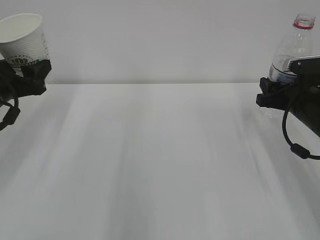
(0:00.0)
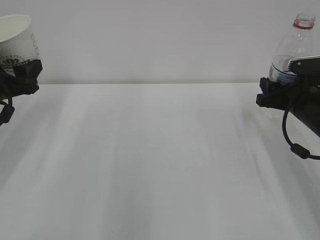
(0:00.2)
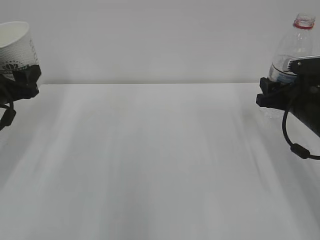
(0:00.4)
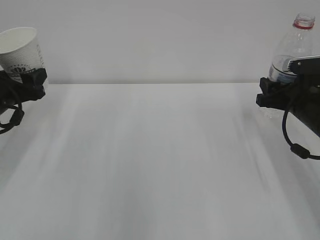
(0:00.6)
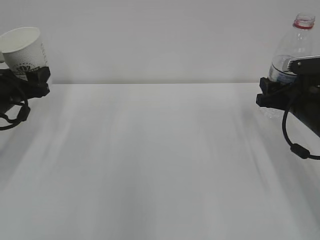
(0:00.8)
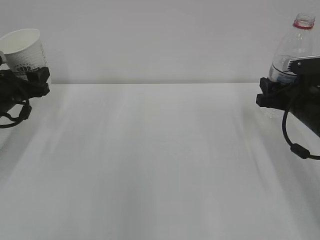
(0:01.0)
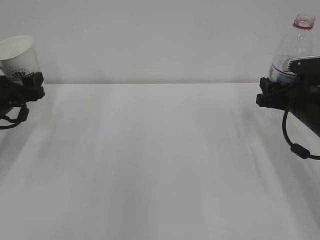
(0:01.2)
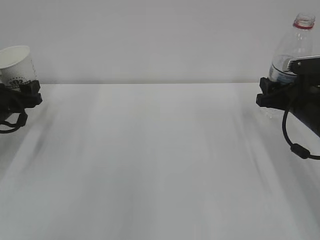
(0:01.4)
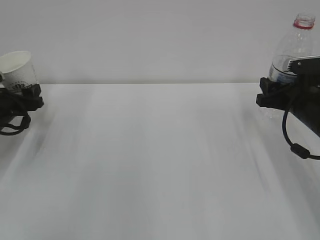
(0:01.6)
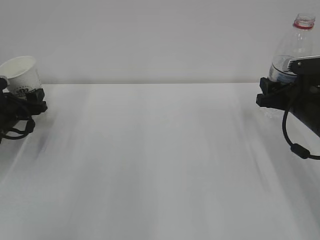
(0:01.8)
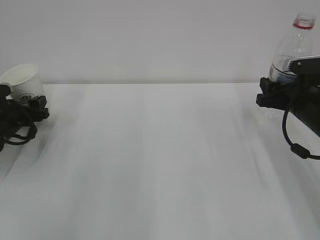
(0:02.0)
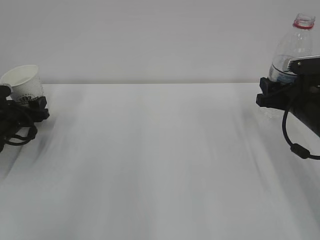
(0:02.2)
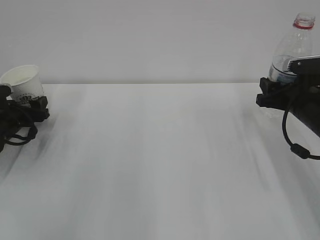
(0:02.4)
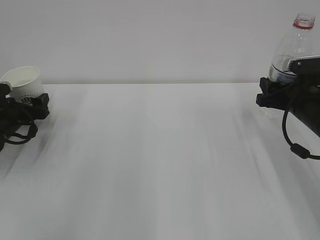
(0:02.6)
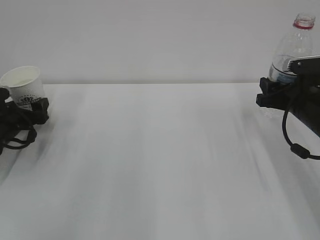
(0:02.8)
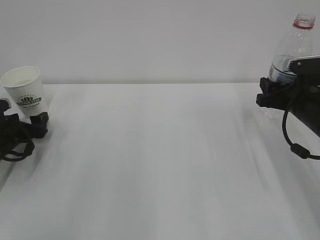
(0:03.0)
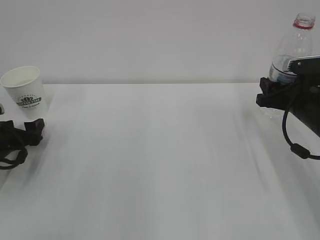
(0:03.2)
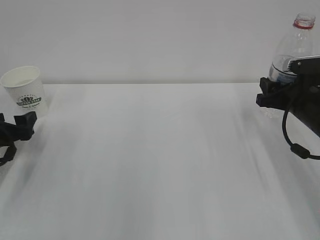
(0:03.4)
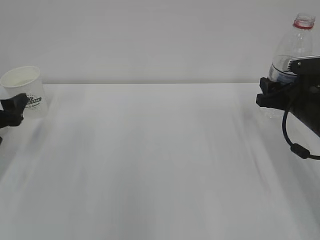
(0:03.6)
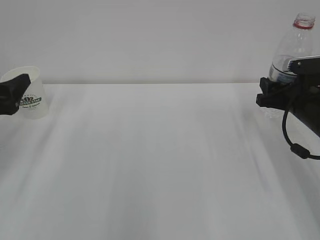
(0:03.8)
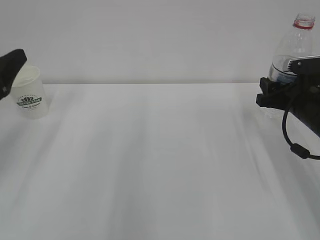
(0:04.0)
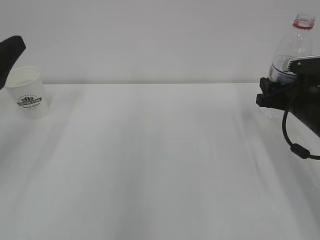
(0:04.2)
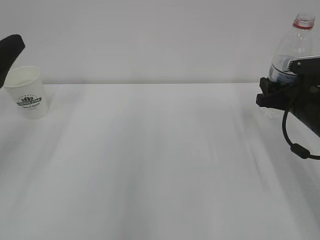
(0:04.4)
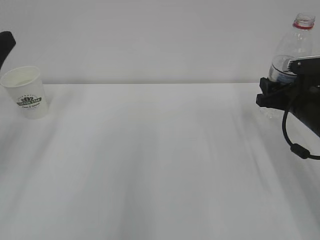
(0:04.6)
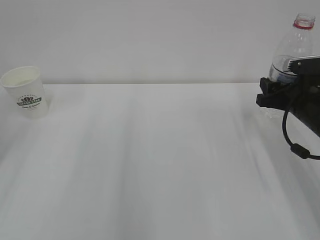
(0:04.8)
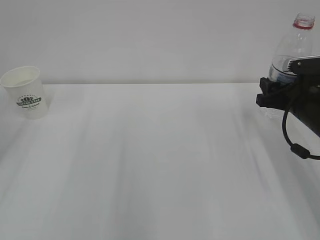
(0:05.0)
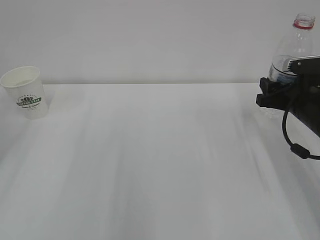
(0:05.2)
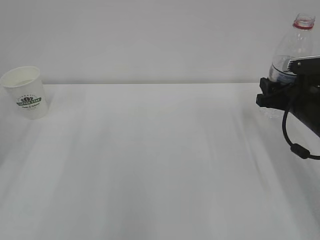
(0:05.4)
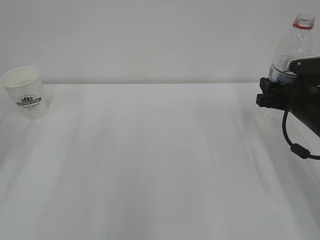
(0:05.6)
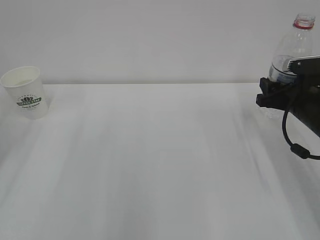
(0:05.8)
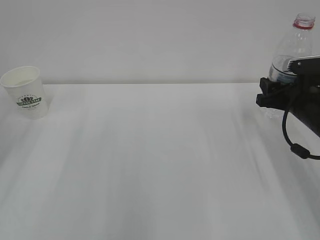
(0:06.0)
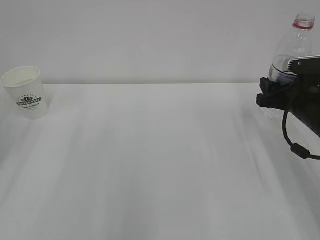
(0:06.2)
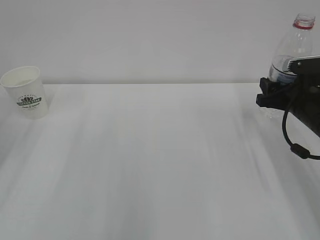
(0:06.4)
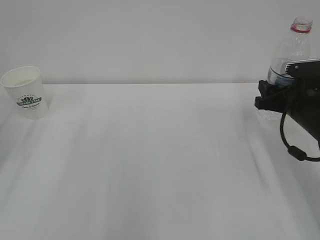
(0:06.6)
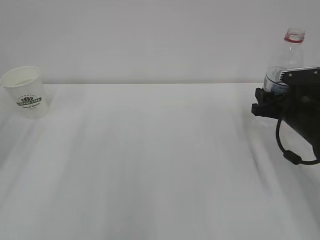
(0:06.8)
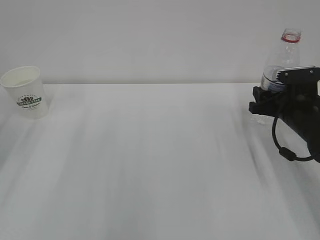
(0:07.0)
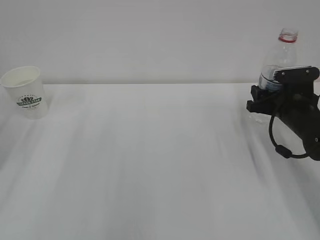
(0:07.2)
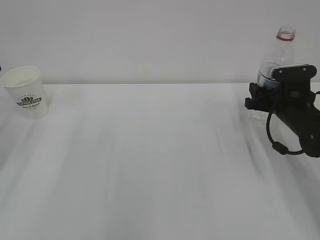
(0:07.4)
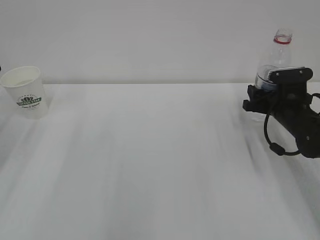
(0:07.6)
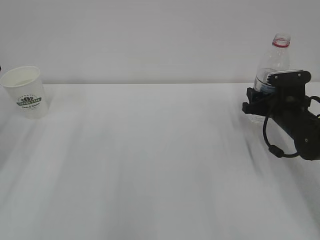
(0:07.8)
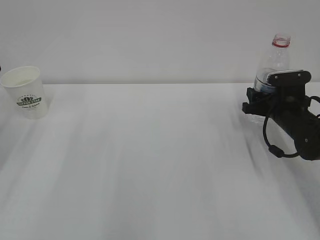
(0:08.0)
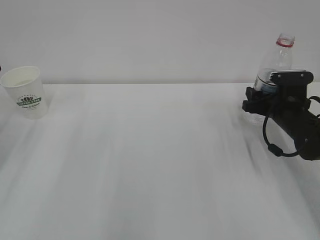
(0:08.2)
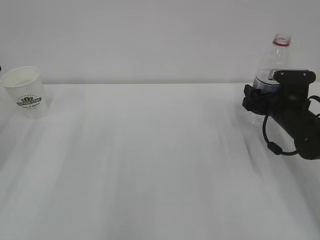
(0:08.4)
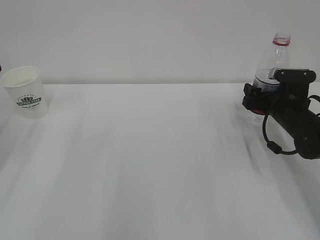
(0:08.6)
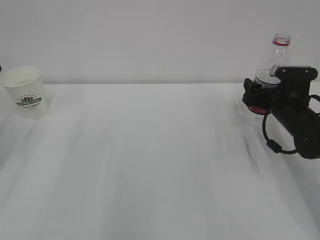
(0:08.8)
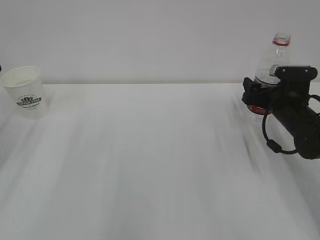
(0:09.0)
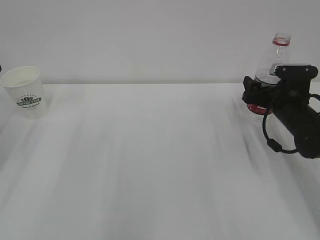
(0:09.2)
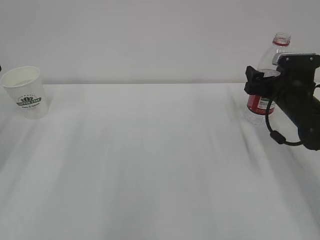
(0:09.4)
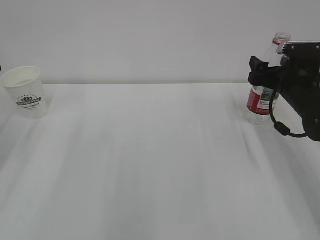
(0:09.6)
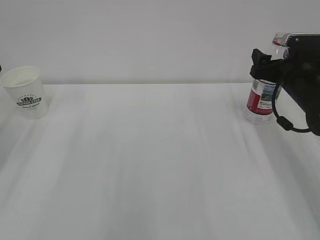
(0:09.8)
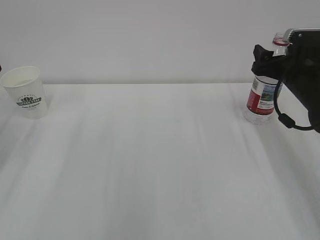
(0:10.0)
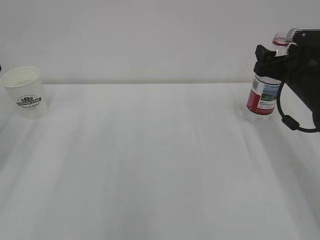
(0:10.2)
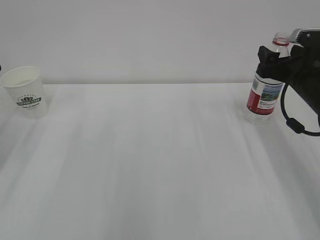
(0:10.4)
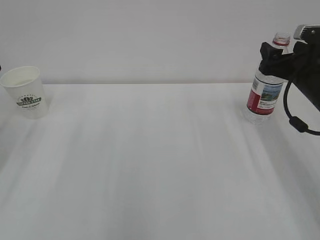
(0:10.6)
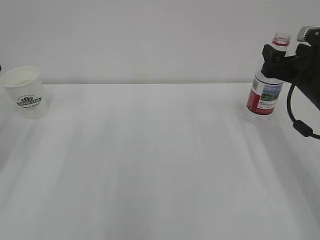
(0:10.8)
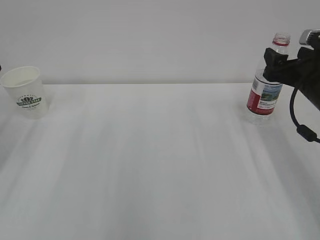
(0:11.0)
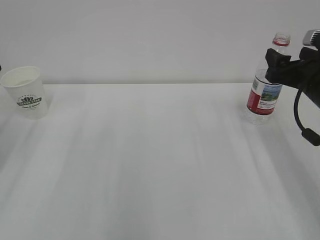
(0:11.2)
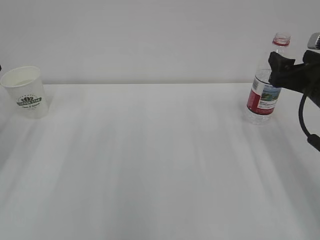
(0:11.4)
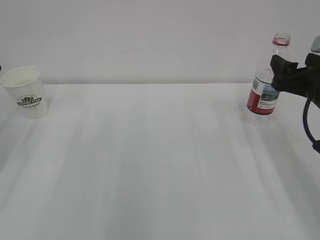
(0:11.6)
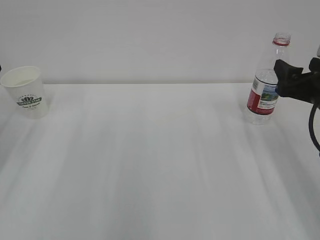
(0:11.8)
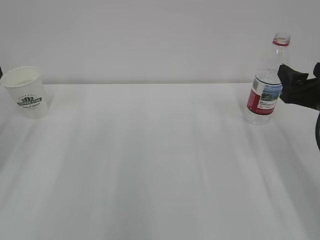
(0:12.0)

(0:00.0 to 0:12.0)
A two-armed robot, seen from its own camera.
0:00.0 - 0:01.6: The left gripper moves downward, forward and to the left, some 15 cm.
0:01.6 - 0:03.0: The left gripper changes place by some 5 cm, and opens.
0:03.0 - 0:04.4: The left gripper heads upward and backward, covering approximately 25 cm.
0:04.4 - 0:06.0: The left gripper ends up roughly 5 cm from where it was.
0:06.0 - 0:07.6: The right gripper ends up some 5 cm from where it was.
0:07.6 - 0:09.0: The right gripper opens up.
0:09.0 - 0:10.4: The right gripper travels upward by approximately 10 cm.
0:10.4 - 0:12.0: The right gripper goes roughly 10 cm backward.

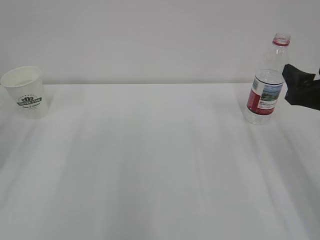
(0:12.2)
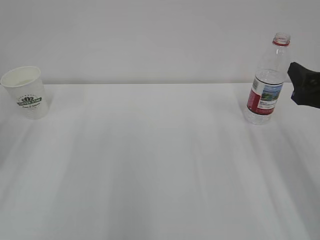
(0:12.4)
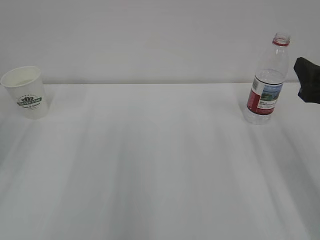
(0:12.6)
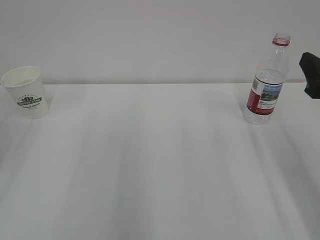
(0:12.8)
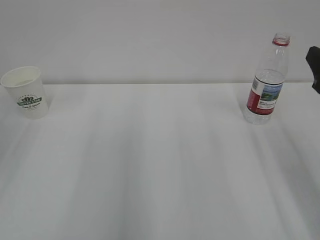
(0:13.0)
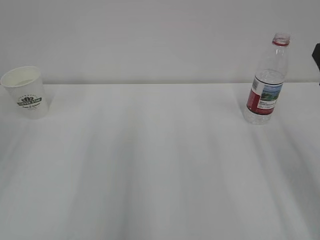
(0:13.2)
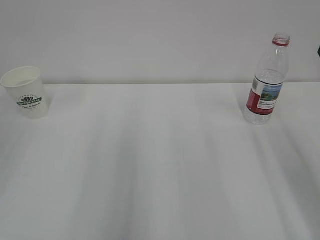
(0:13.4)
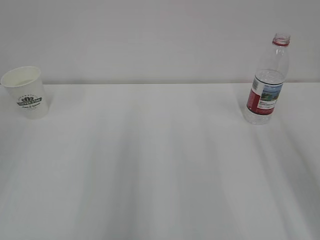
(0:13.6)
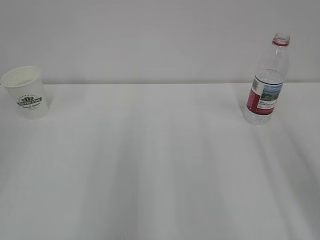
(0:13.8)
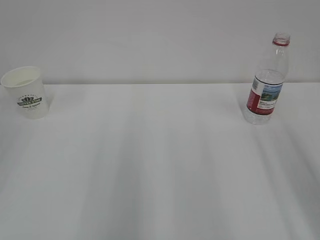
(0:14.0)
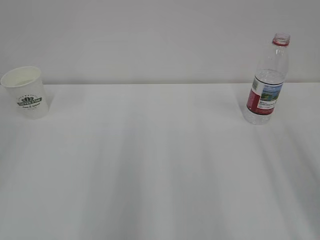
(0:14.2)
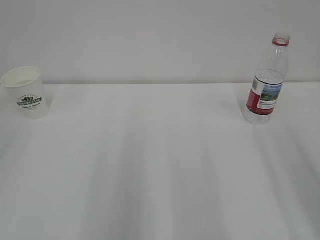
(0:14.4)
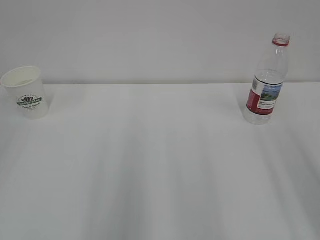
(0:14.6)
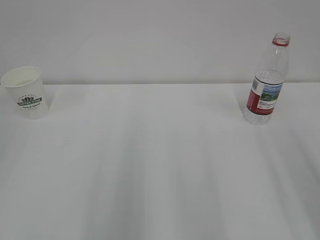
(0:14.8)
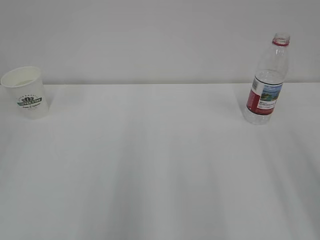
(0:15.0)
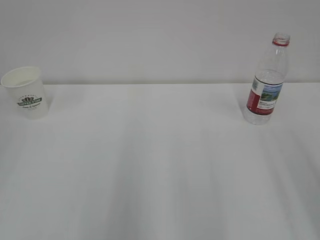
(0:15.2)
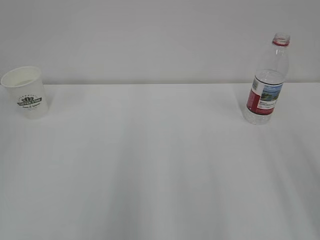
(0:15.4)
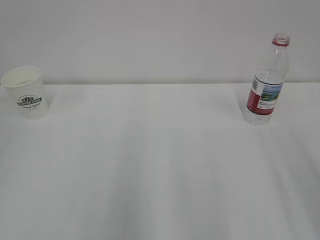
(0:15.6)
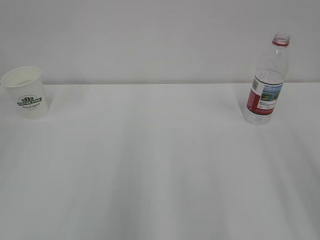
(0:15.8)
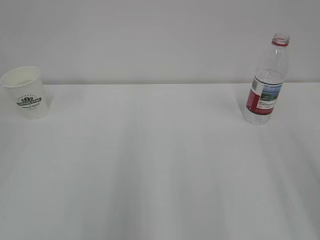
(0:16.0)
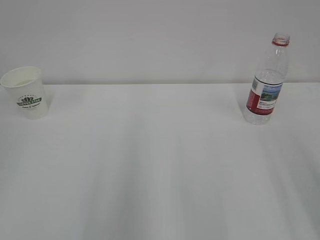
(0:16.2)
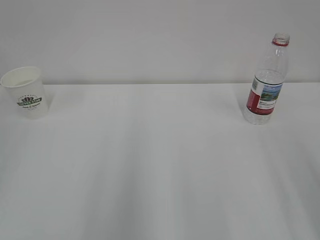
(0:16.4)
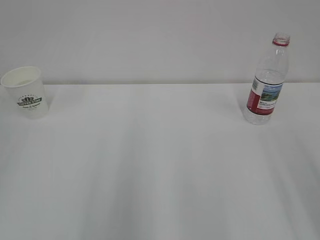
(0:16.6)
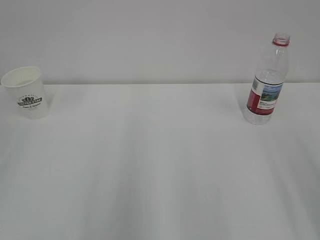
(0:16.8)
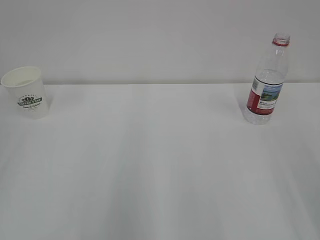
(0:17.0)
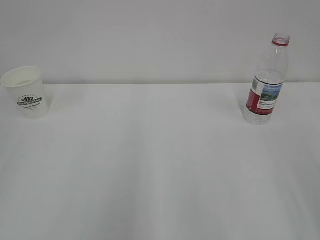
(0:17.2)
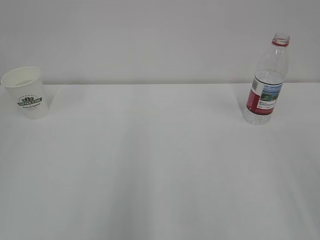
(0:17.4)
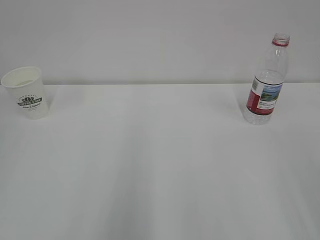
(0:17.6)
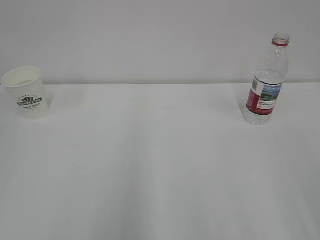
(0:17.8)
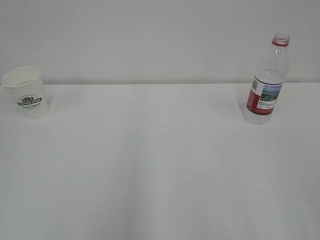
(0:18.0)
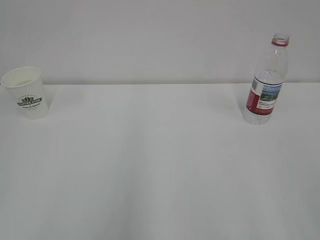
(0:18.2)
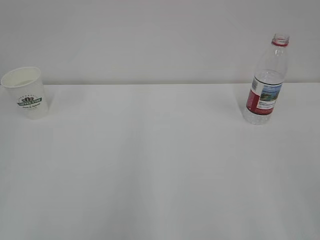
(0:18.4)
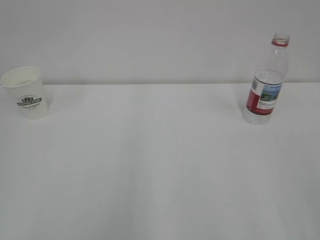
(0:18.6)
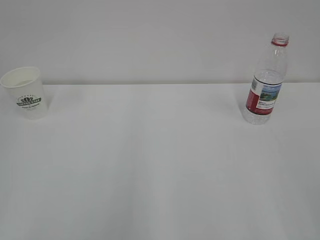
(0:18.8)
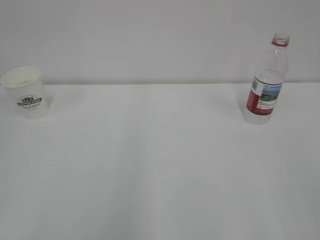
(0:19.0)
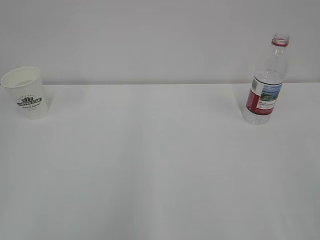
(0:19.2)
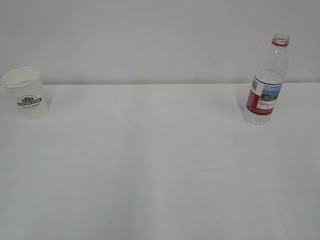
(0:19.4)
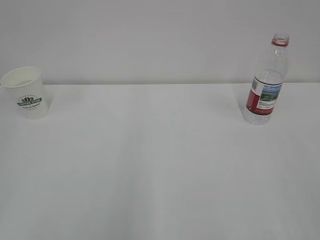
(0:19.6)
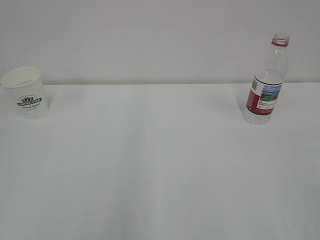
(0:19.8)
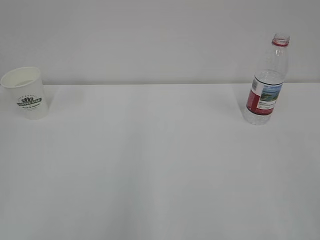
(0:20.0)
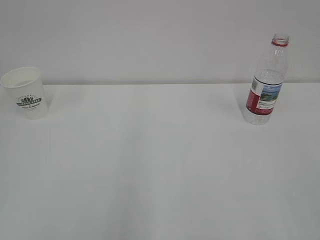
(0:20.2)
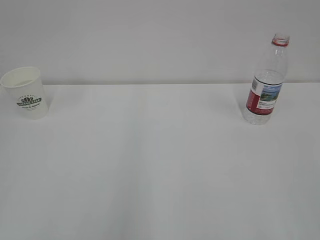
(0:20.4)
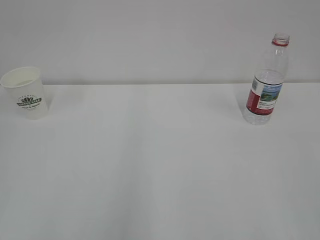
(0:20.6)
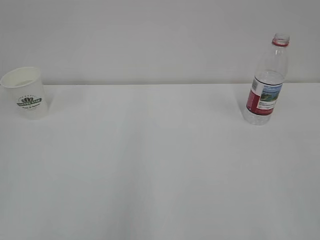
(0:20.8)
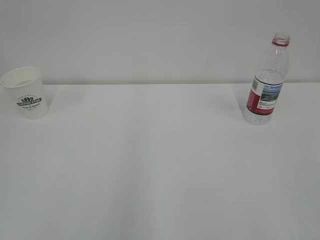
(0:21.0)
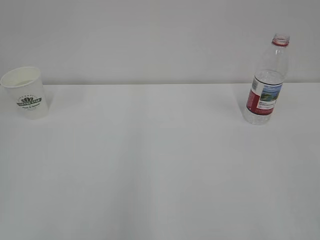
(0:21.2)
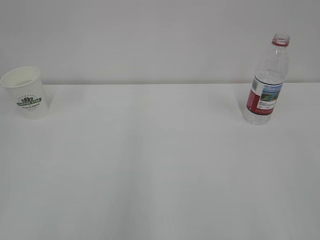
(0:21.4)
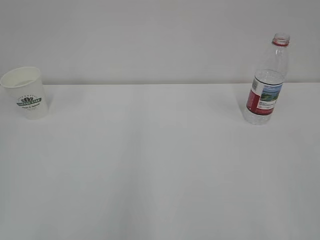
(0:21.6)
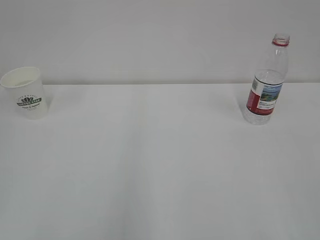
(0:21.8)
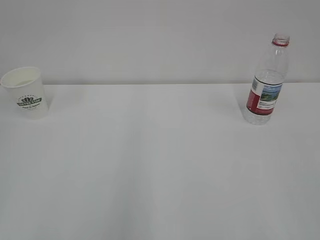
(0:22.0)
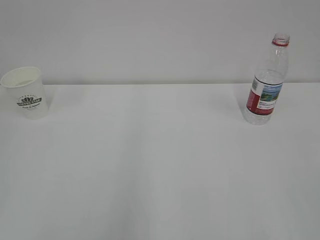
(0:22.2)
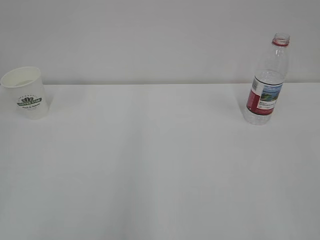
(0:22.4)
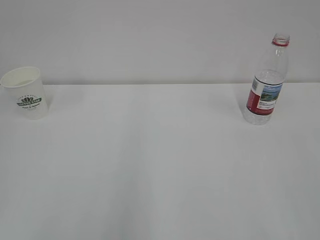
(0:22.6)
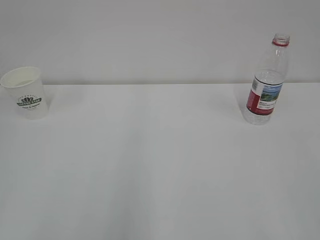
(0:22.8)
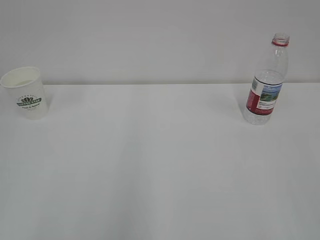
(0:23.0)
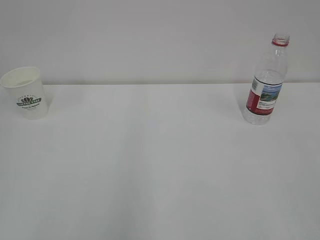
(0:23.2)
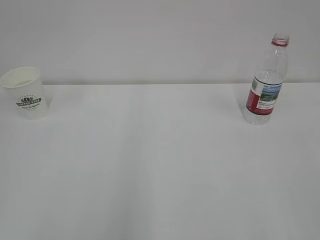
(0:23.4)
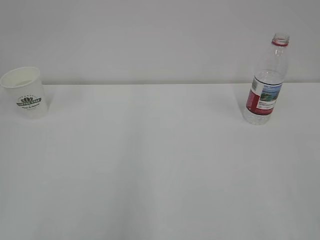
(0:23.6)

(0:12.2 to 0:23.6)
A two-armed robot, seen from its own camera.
0:12.2 - 0:13.6: The right gripper shifts some 10 cm upward and backward.
